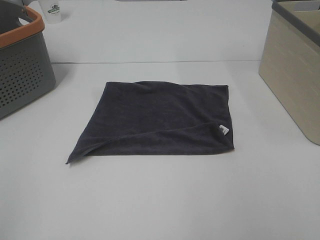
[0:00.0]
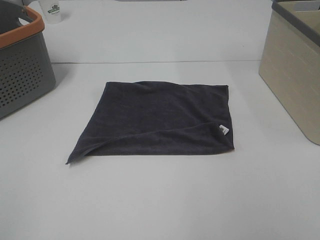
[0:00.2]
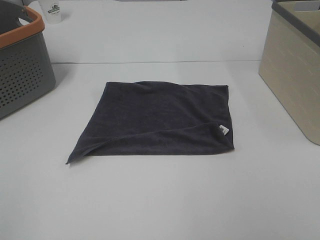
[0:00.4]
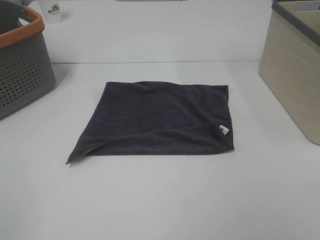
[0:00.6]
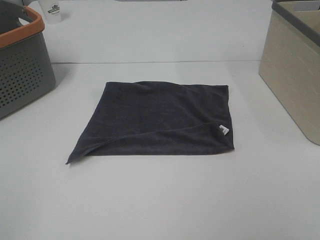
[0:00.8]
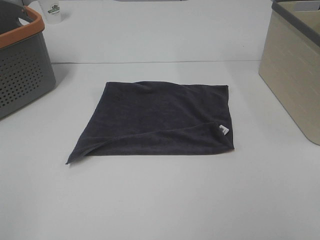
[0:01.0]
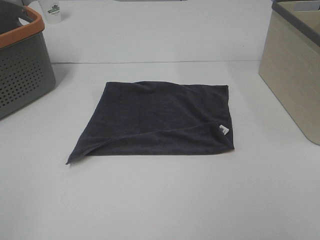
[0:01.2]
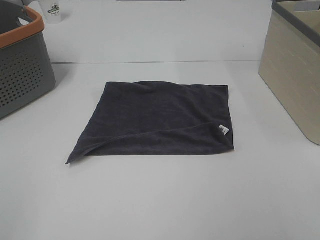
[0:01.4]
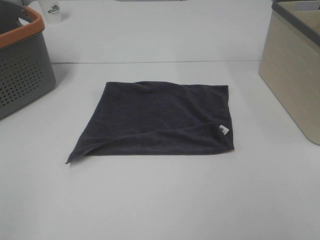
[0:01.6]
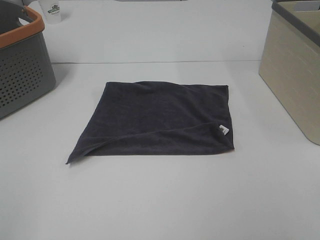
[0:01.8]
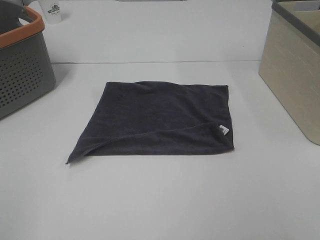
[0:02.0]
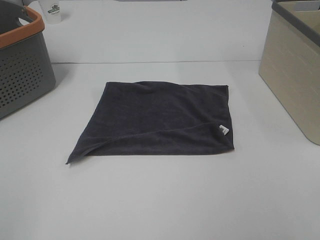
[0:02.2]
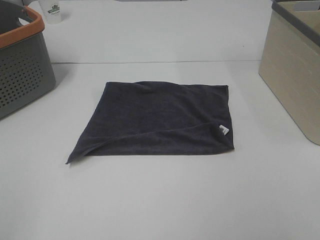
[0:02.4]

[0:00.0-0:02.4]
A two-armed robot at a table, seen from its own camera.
Task of the whole recording: Remove the towel and place it.
0:01.2 to 0:02.4: Neither gripper changes place.

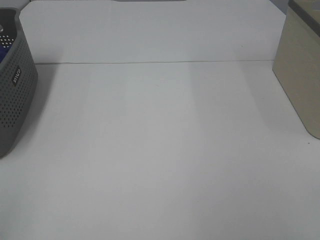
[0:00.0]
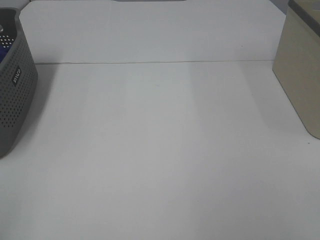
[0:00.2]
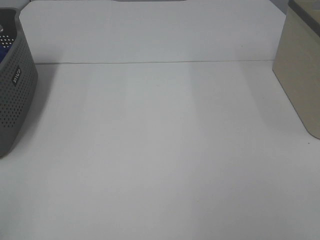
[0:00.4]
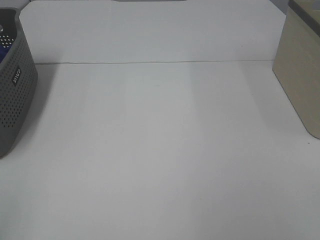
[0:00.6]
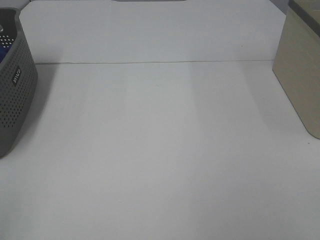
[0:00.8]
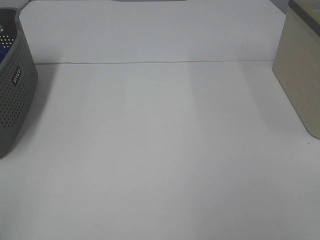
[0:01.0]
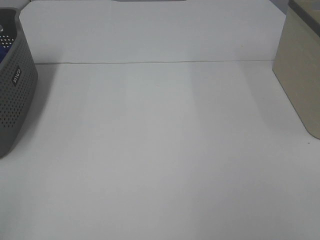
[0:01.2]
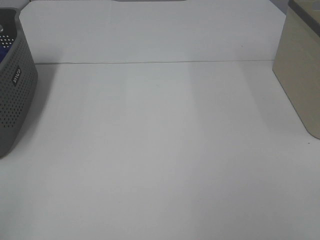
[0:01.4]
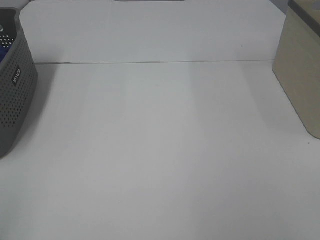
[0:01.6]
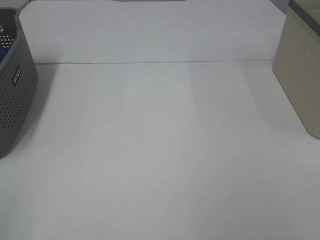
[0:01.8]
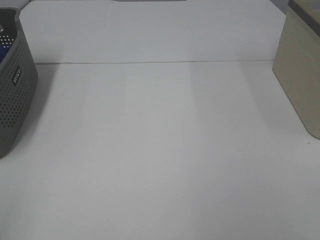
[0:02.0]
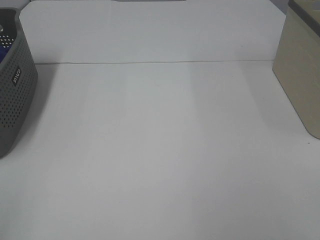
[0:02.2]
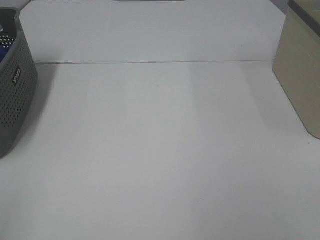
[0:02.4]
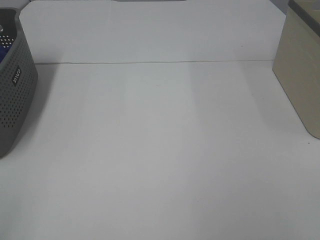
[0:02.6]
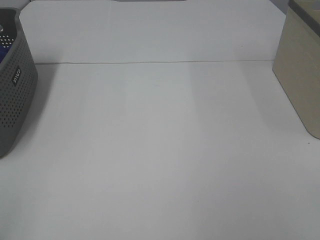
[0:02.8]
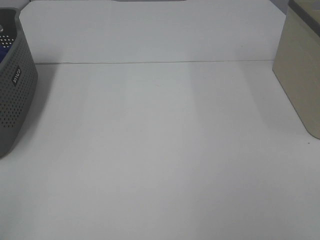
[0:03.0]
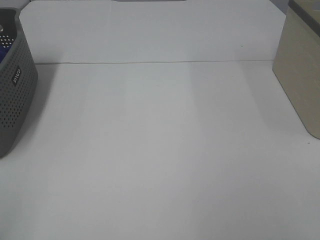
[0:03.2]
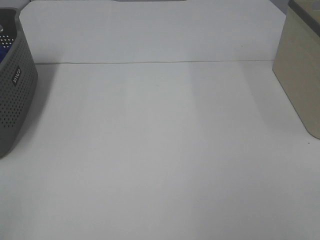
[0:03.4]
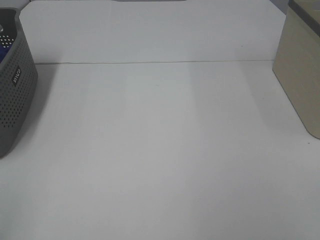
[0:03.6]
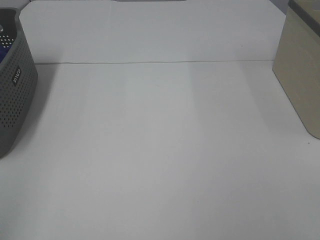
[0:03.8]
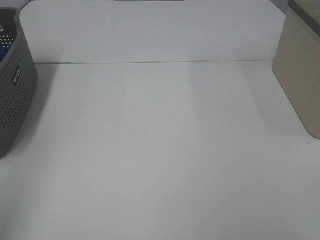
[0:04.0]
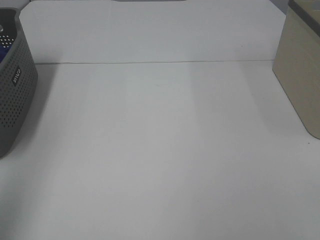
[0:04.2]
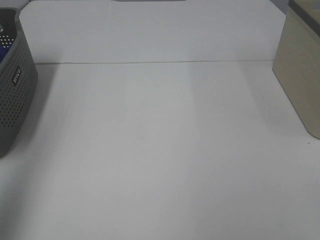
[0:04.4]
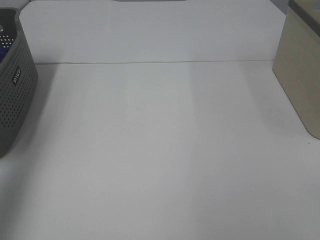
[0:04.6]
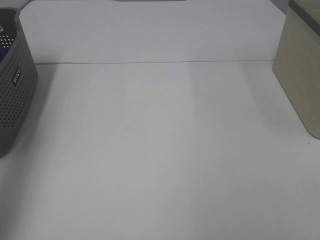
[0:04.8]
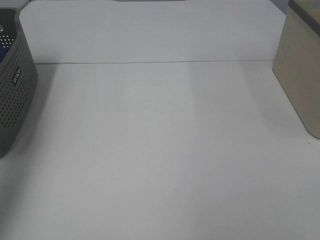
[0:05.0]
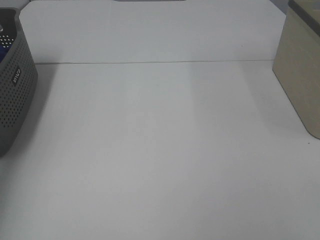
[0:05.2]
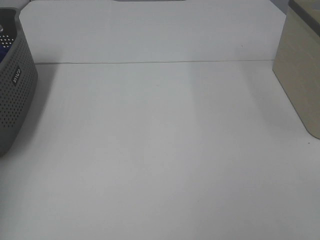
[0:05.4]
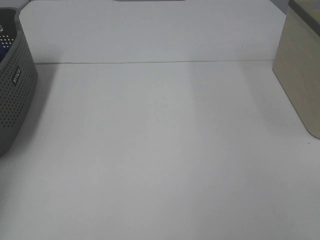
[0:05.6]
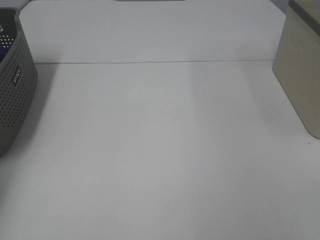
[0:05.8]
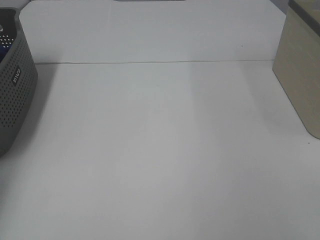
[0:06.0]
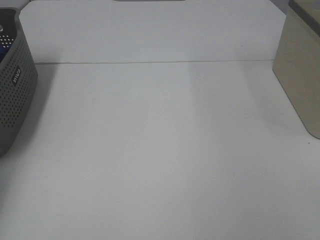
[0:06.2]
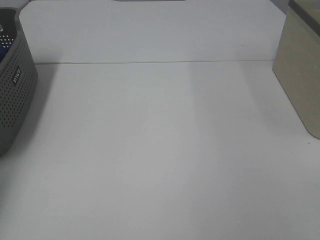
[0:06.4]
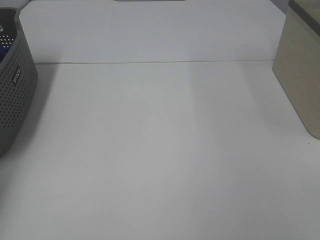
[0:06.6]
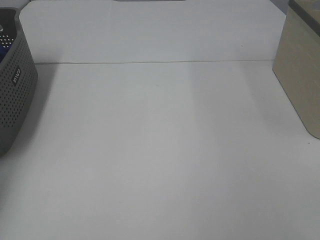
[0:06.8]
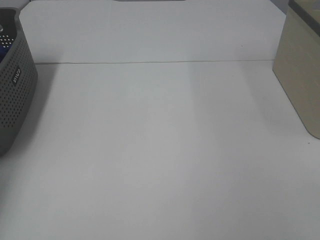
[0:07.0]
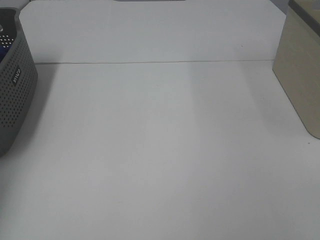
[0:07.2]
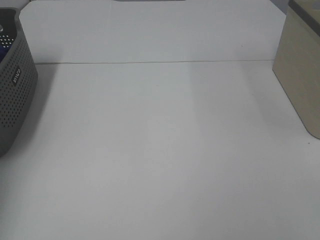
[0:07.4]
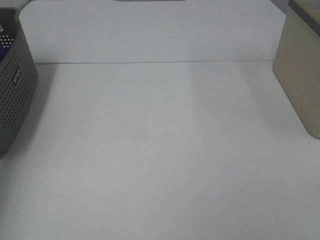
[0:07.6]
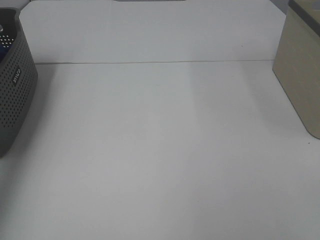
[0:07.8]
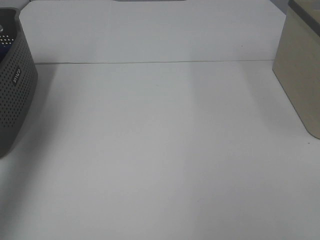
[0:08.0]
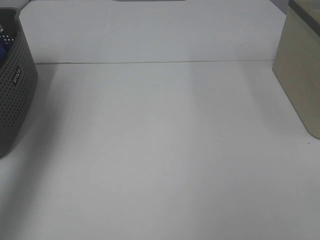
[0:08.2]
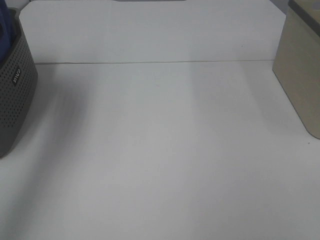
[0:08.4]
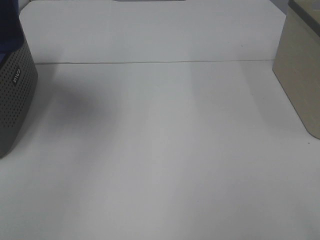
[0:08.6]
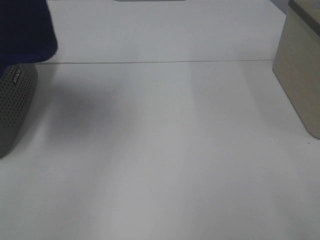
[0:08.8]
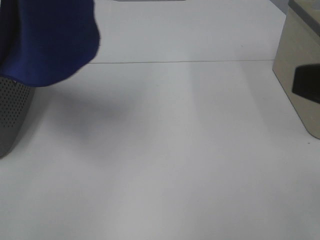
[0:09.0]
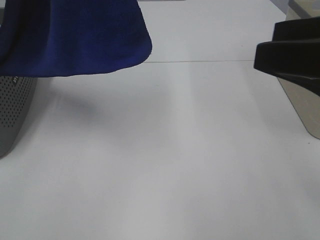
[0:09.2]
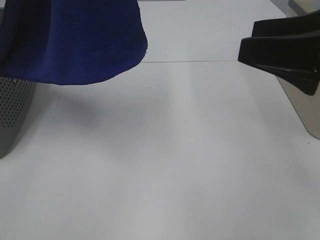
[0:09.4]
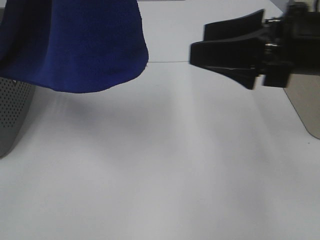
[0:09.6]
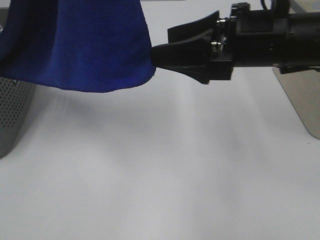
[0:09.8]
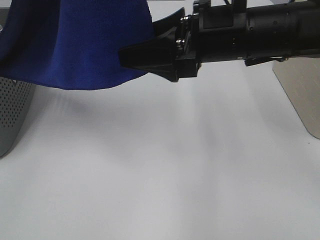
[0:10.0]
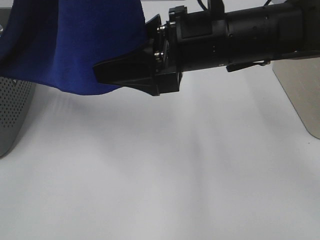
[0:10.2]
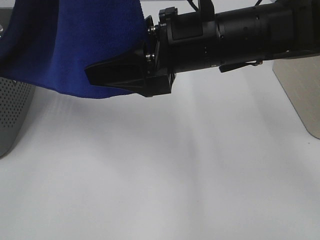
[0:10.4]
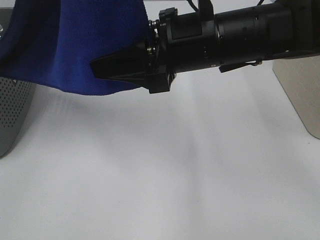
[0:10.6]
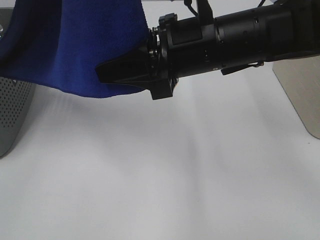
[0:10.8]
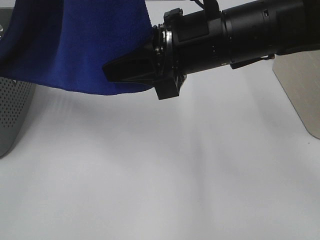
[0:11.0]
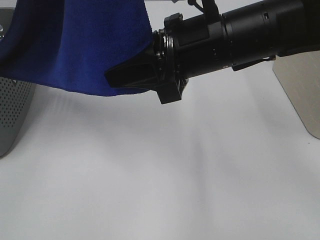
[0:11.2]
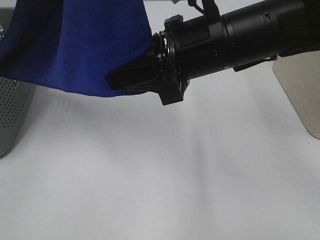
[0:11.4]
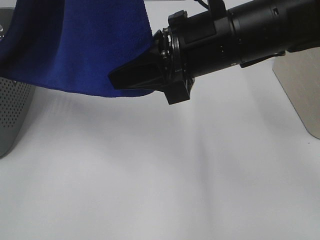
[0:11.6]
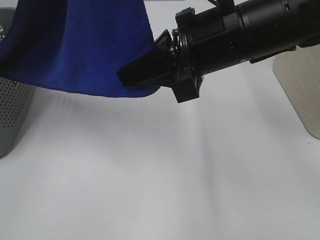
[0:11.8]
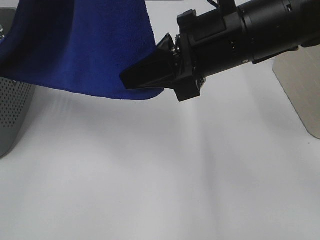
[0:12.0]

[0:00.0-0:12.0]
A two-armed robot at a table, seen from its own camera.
Task of the whole recording: Remove the towel and place it.
Step, 0:08.0 to 0:11.6: Right hand: grab a corner of the blue towel and straighten it.
0:00.0 to 0:03.0: The two grippers keep their place.
0:03.0 to 0:04.4: The left gripper travels upward and forward by roughly 20 cm.
0:04.4 to 0:06.0: The left gripper heads forward and downward, covering about 40 cm.
0:07.6 to 0:09.0: The right gripper moves forward, some 10 cm, while the left gripper shifts approximately 30 cm to the right, upward and backward.
0:09.0 to 0:10.4: The right gripper heads to the left and forward, covering some 25 cm.
0:10.4 to 0:12.0: The right gripper closes its fingers.

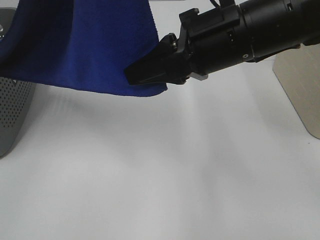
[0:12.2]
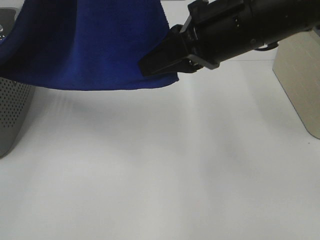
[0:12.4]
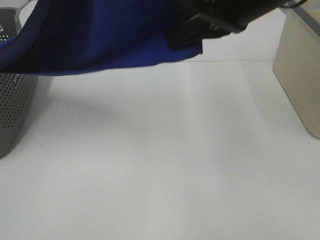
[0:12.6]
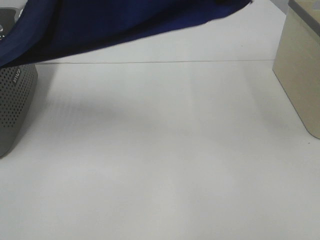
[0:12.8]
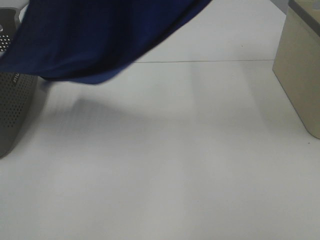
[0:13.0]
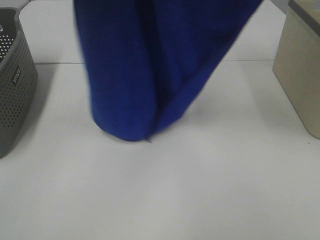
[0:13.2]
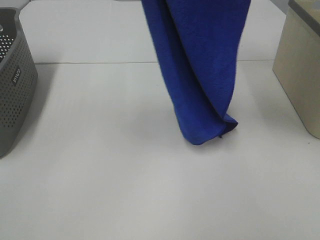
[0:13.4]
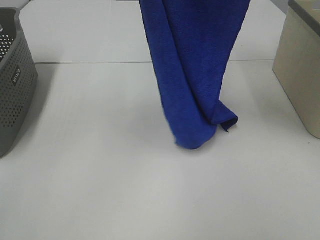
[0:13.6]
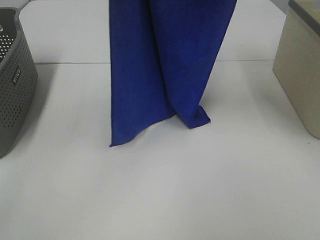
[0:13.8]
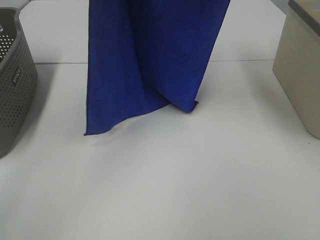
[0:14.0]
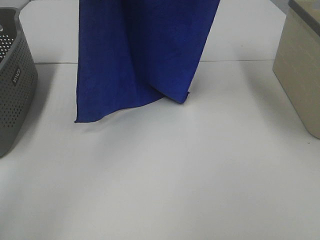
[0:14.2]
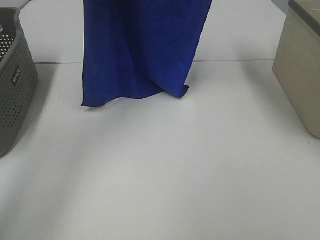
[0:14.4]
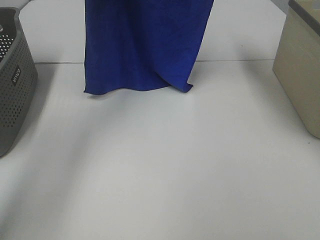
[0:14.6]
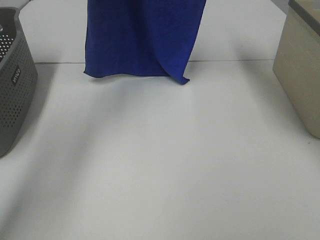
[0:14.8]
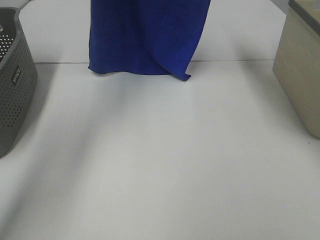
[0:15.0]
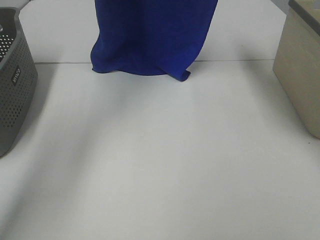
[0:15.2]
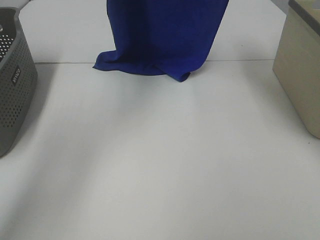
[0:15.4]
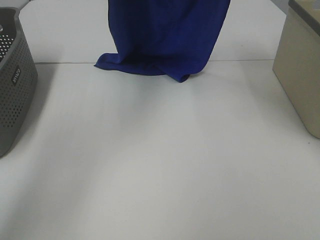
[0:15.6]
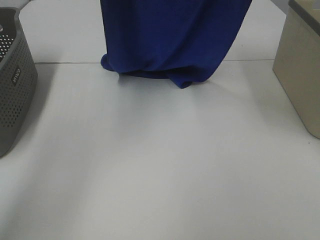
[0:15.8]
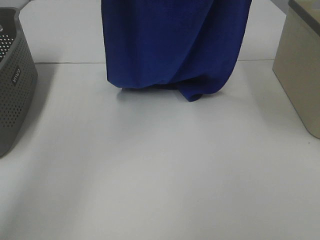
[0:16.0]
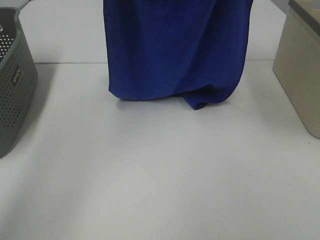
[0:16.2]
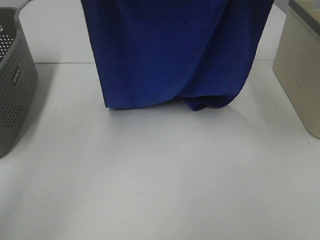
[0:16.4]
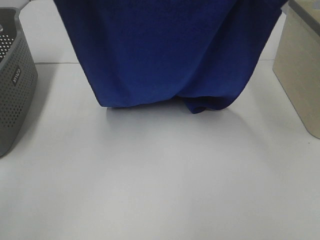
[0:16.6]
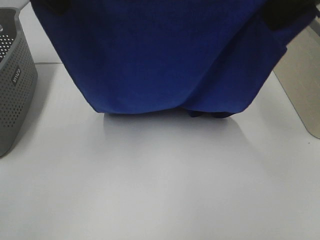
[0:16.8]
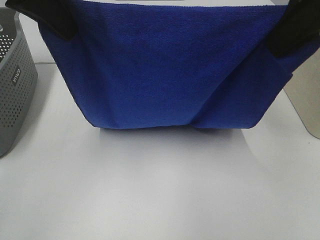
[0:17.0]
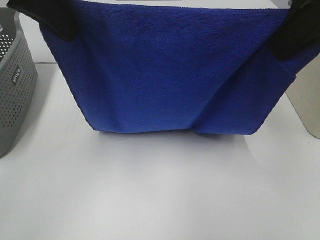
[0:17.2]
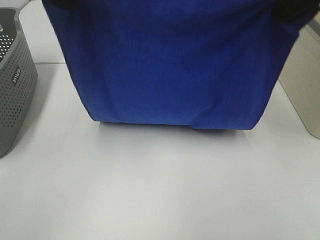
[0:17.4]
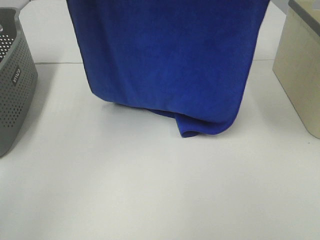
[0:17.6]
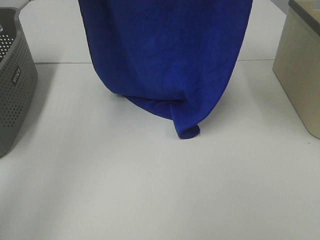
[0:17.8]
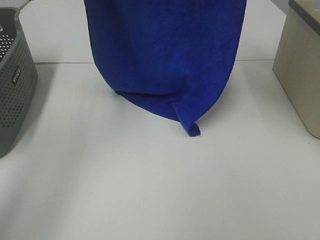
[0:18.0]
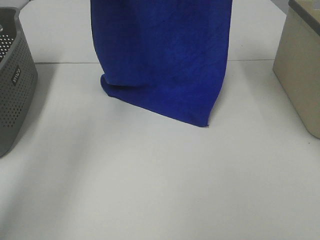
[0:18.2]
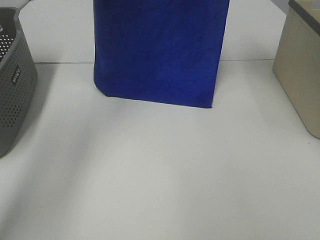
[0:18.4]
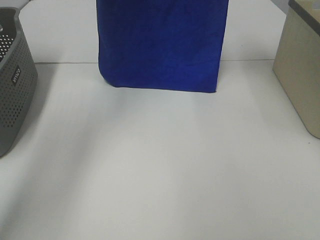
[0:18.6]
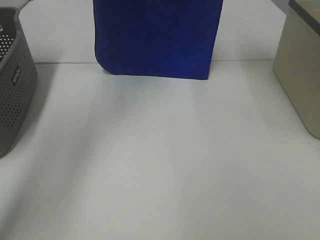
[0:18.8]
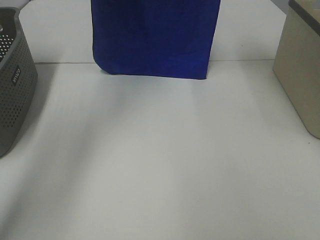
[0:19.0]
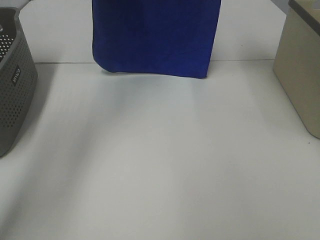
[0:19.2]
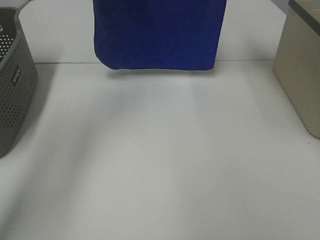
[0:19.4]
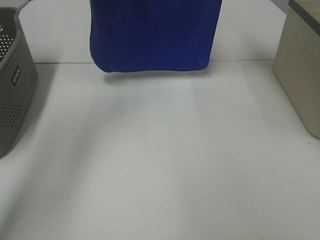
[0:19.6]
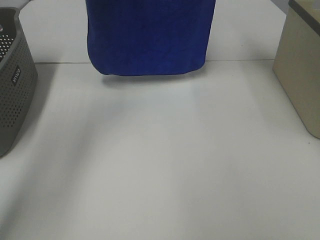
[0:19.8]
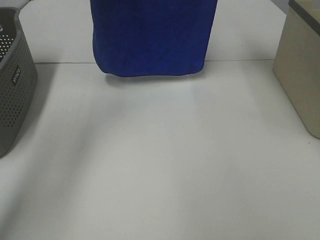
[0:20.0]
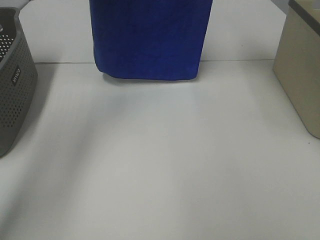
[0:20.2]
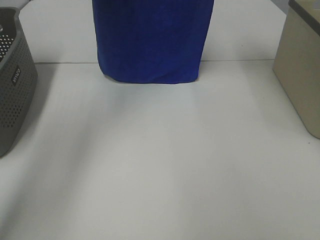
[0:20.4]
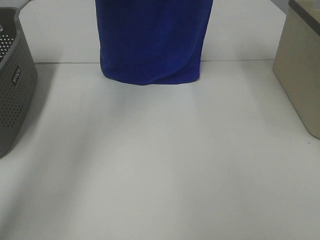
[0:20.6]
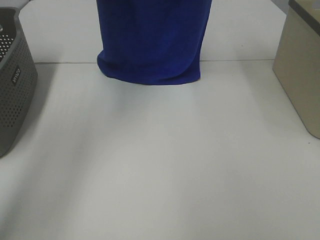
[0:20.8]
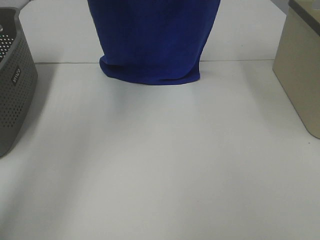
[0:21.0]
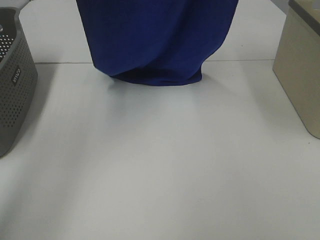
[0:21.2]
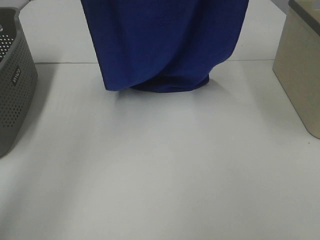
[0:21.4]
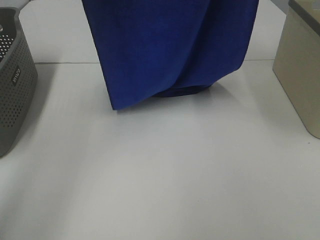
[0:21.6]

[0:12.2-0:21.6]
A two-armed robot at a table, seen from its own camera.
Task of the whole recording: Remove the towel and place it.
Step, 0:12.2 to 0:20.4: Left hand: spread the blue towel flat on the table.
Step, 0:12.2 to 0:20.4: Right hand: spread the blue towel flat on the table.
0:12.2 to 0:13.8: The left gripper heads forward, covering roughly 10 cm, while the right gripper heads upward and forward, covering roughly 20 cm.
0:13.8 to 0:15.4: The grippers both shift forward by some 10 cm.
0:15.4 to 0:17.0: The grippers both shift backward by some 20 cm.
0:17.0 to 0:18.4: The right gripper goes some 25 cm forward, while the left gripper moves forward and upward, roughly 20 cm.
0:20.0 to 0:21.6: Both grippers travel together backward, about 10 cm.
